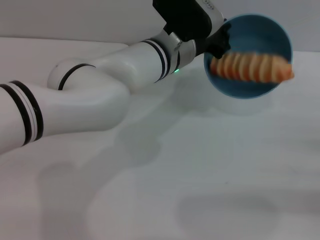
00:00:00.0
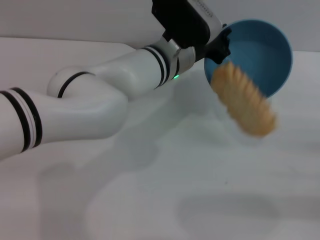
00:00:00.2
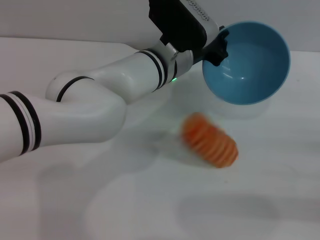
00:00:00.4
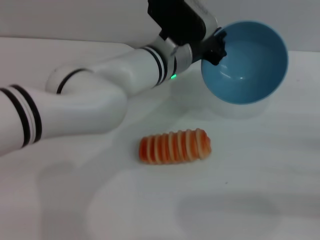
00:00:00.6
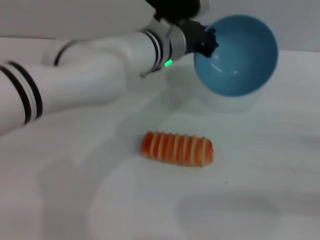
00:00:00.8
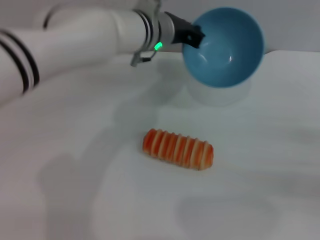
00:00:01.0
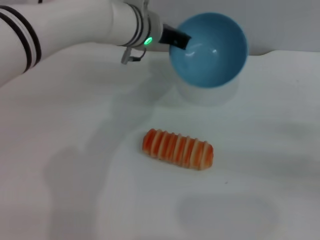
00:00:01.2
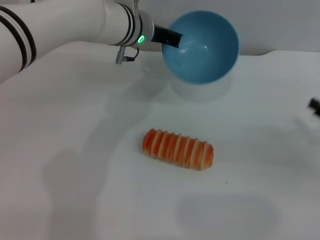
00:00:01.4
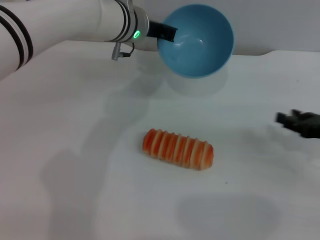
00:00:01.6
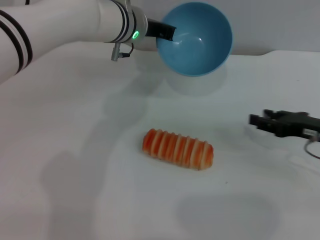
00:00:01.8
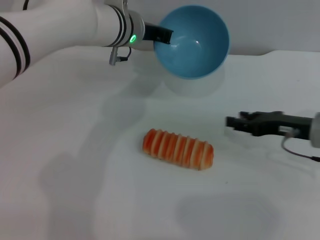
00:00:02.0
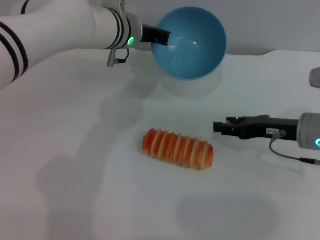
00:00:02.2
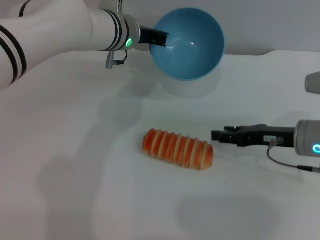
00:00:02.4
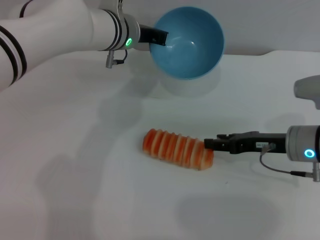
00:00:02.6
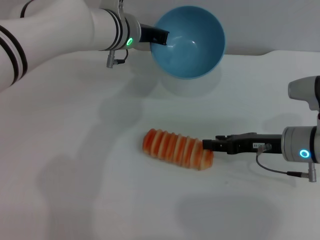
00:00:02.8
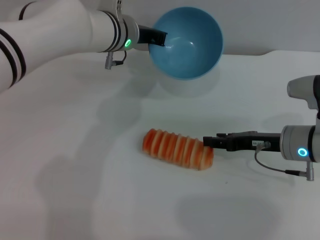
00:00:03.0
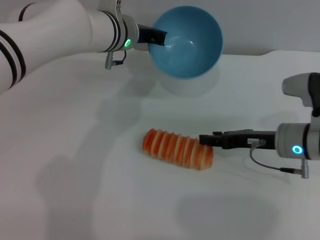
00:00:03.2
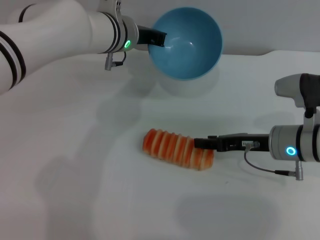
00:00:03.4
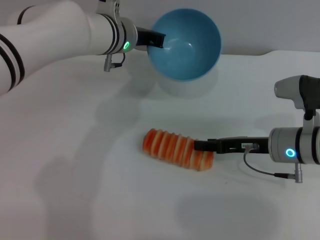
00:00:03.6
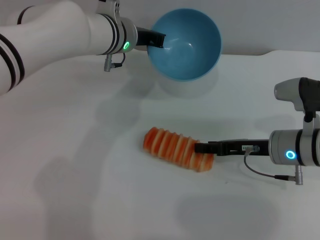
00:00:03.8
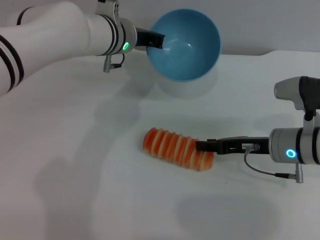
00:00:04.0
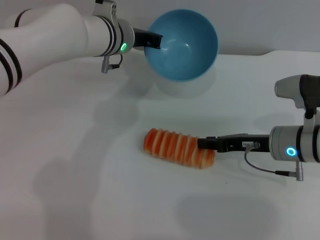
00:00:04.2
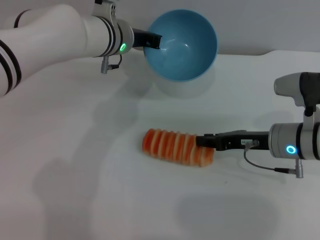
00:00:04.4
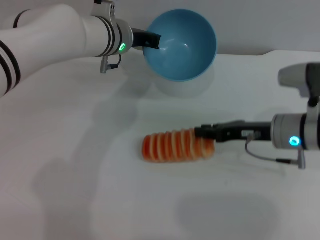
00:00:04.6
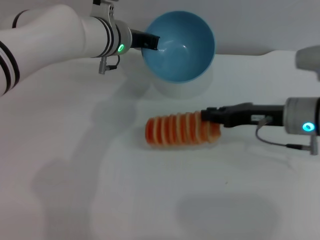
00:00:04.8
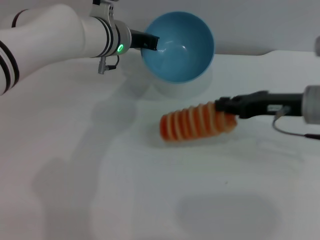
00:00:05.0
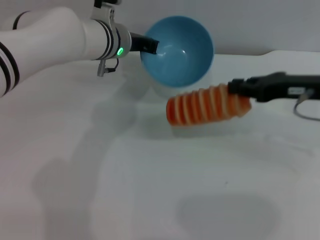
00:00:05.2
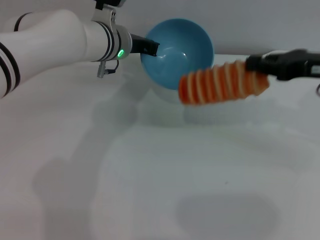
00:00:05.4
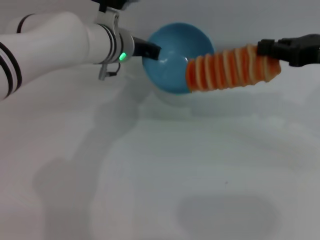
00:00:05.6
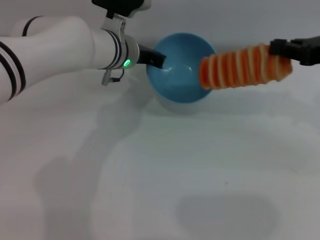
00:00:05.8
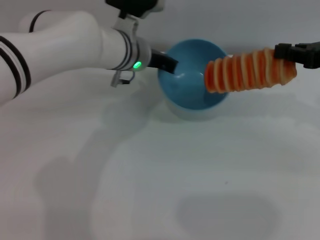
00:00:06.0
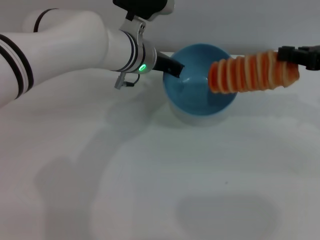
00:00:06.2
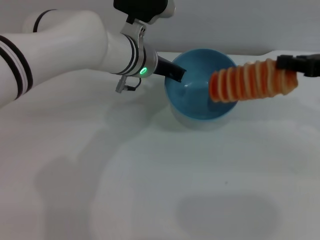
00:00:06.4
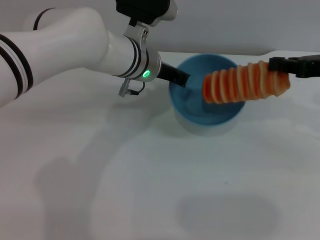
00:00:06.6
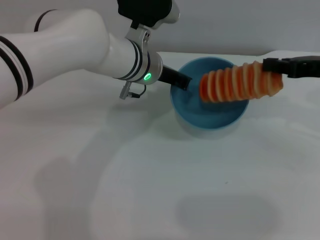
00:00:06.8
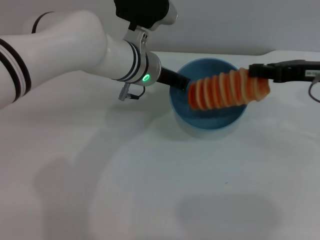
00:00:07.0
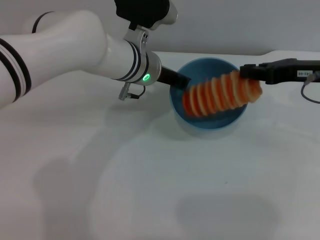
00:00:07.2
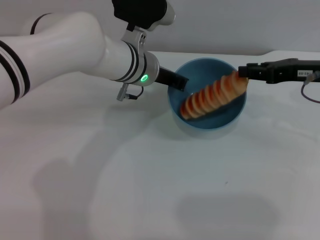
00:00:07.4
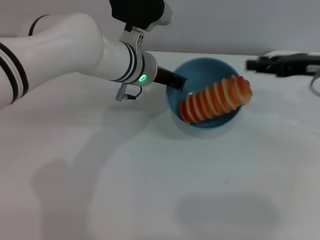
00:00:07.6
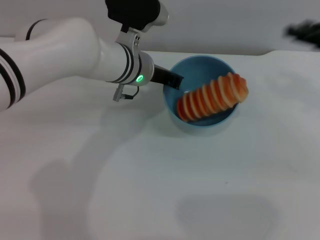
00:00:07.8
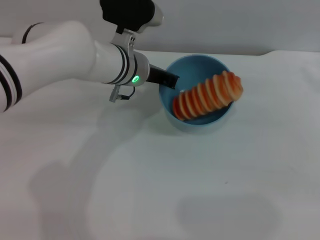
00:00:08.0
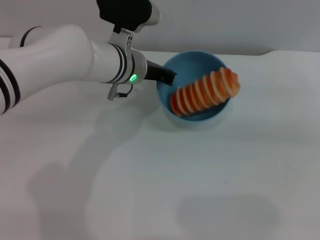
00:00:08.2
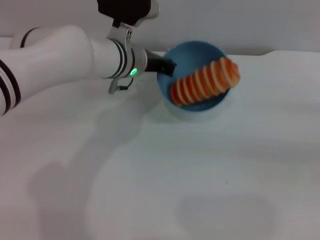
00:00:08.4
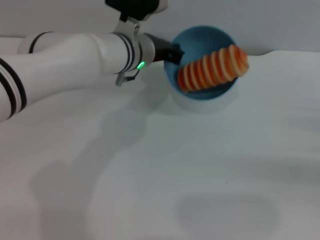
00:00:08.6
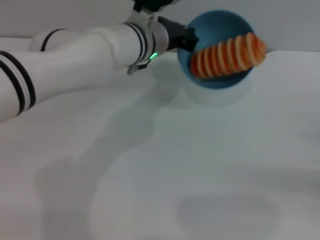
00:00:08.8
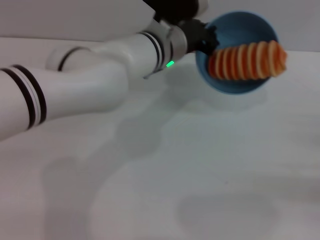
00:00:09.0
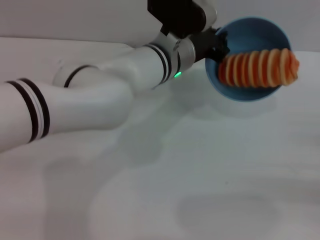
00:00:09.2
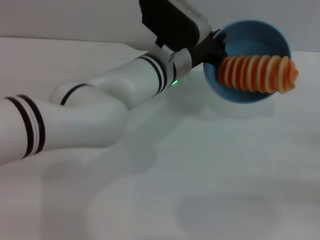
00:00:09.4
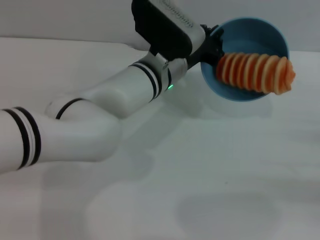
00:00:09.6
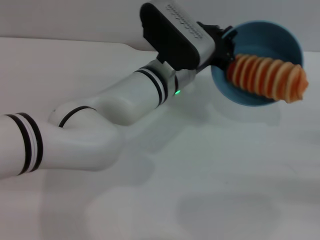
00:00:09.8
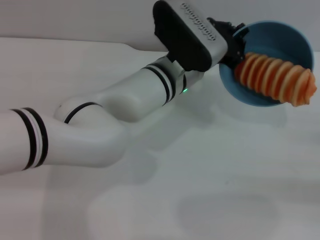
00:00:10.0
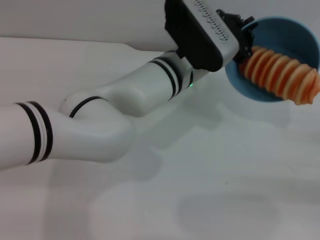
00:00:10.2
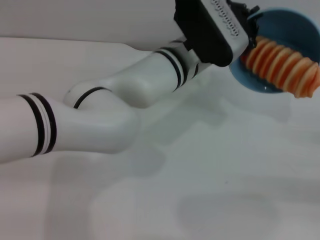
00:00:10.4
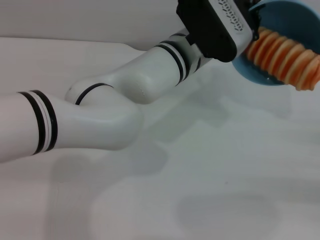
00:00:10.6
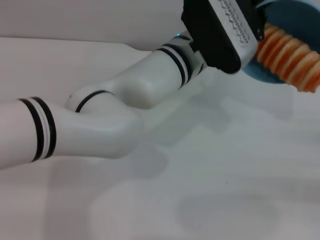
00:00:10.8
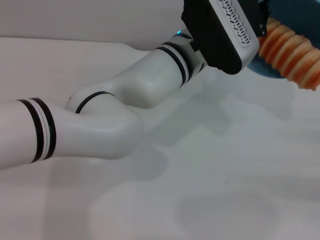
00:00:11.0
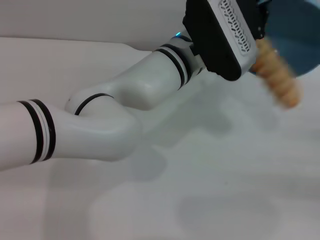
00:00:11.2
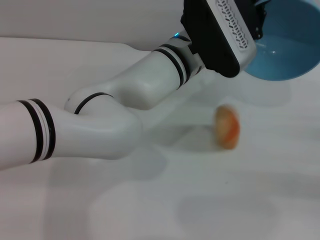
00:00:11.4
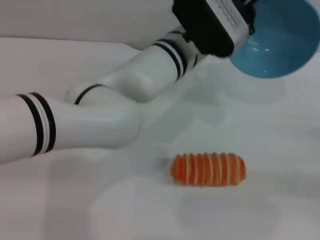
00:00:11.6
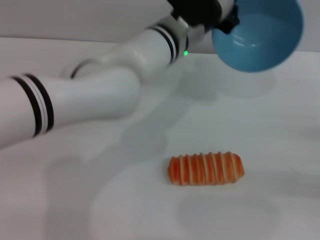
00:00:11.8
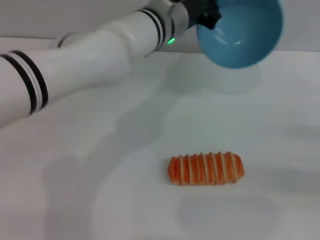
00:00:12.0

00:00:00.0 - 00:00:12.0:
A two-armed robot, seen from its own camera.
Task of the whole recording: put the bread into the blue bowl and pour it out repeatedly.
Step, 00:00:00.8 - 00:00:05.2: Pick up the bread with the right gripper.
Step, 00:00:05.4 - 00:00:07.6: Place the bread into the bowl.
Step, 00:00:07.8 - 00:00:11.4: Pour the bread out of the bowl.
00:00:00.0 - 00:00:01.6: The left gripper heads to the left and forward, covering roughly 10 cm. Meanwhile the right gripper moves forward and to the left, roughly 10 cm.
00:00:01.6 - 00:00:03.0: The right gripper moves to the left, some 10 cm.
00:00:03.0 - 00:00:04.4: The right gripper closes its fingers.
00:00:04.4 - 00:00:06.0: The right gripper moves upward and to the right, about 20 cm.
00:00:06.0 - 00:00:07.6: The right gripper opens up.
00:00:07.6 - 00:00:09.0: The right gripper heads backward, to the right and downward, covering roughly 20 cm, and opens.
00:00:10.4 - 00:00:12.0: The left gripper ends up some 5 cm from where it was.

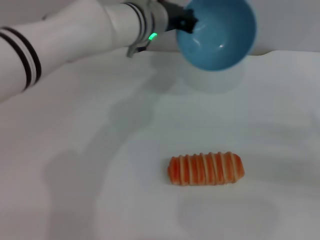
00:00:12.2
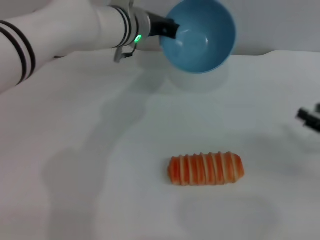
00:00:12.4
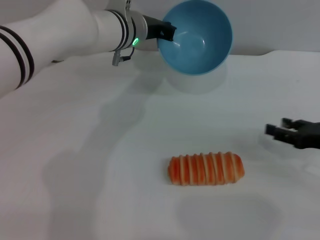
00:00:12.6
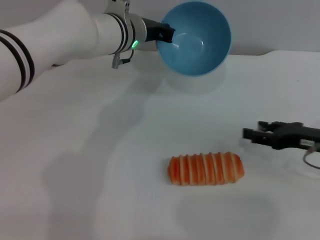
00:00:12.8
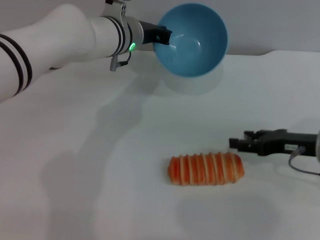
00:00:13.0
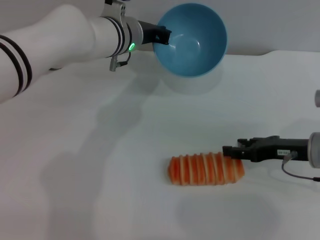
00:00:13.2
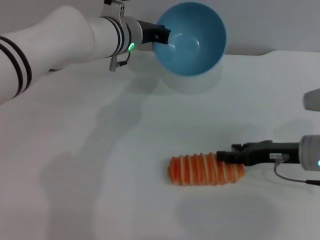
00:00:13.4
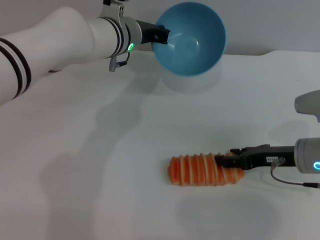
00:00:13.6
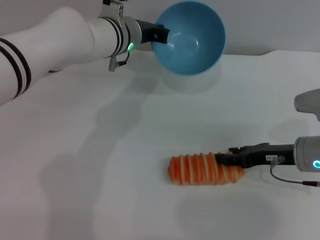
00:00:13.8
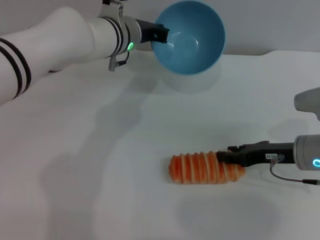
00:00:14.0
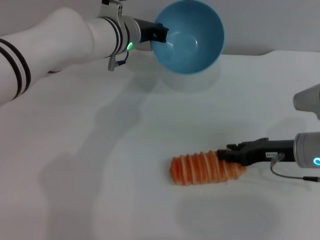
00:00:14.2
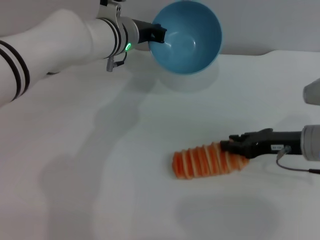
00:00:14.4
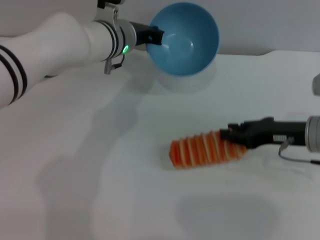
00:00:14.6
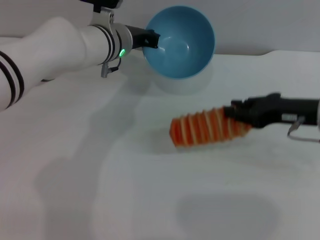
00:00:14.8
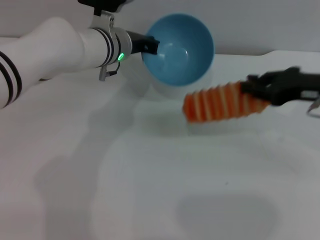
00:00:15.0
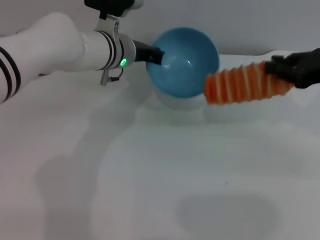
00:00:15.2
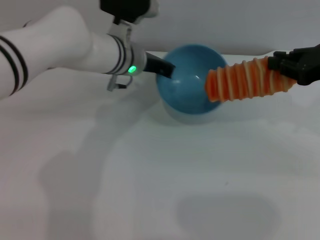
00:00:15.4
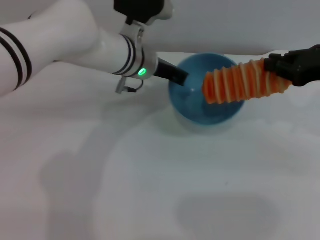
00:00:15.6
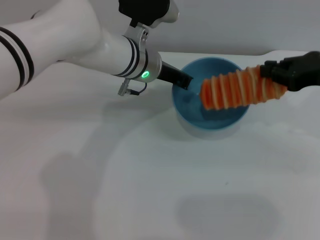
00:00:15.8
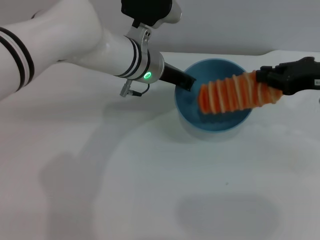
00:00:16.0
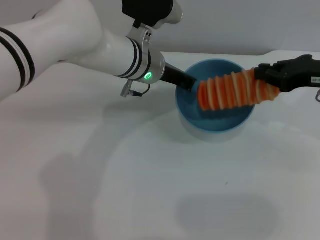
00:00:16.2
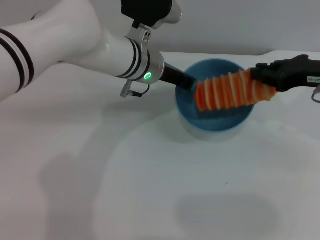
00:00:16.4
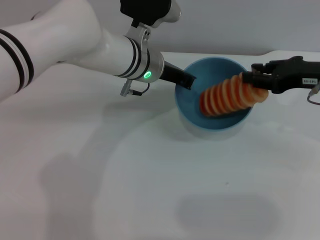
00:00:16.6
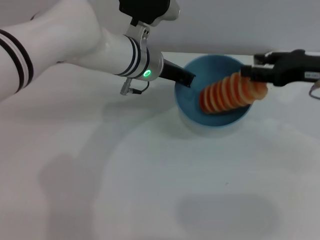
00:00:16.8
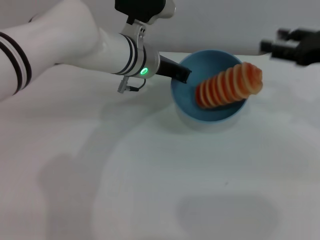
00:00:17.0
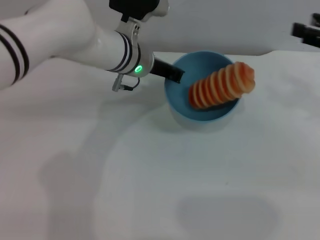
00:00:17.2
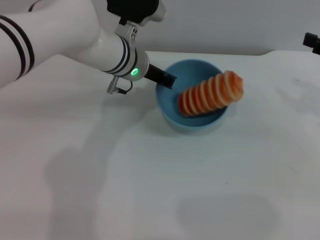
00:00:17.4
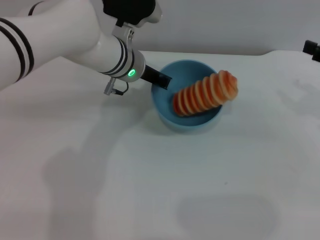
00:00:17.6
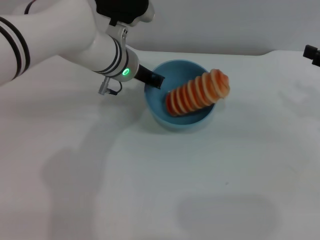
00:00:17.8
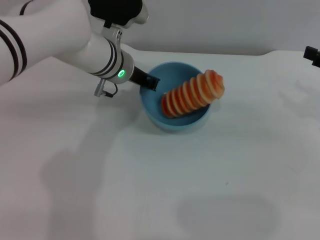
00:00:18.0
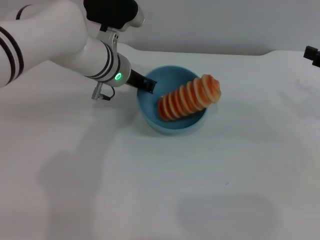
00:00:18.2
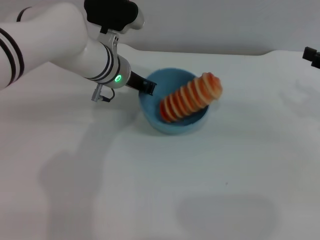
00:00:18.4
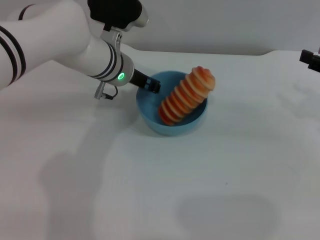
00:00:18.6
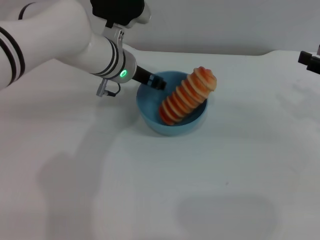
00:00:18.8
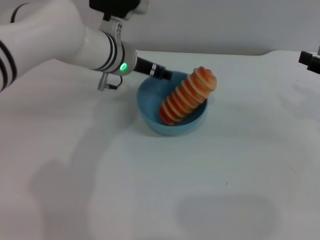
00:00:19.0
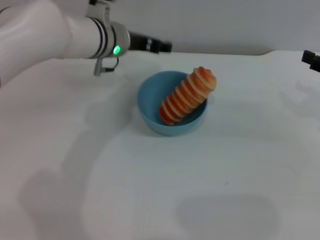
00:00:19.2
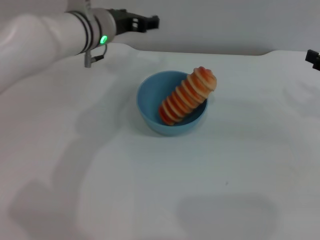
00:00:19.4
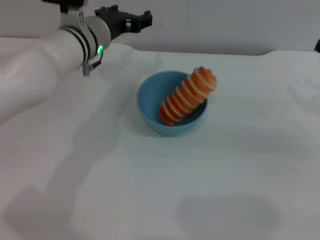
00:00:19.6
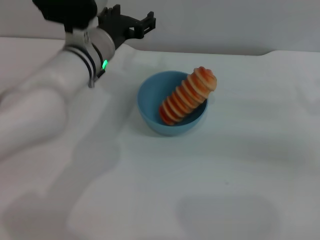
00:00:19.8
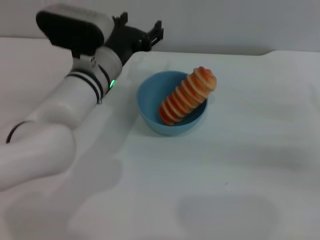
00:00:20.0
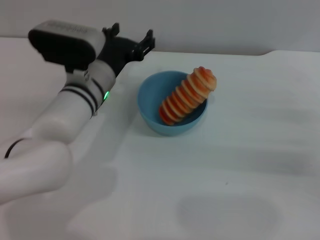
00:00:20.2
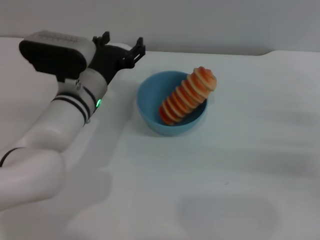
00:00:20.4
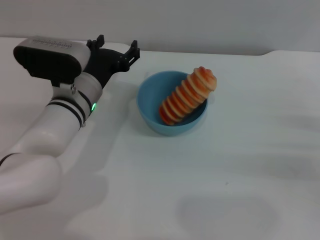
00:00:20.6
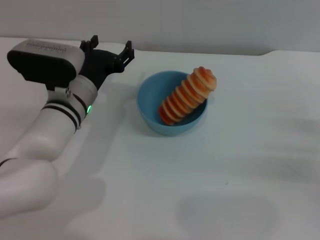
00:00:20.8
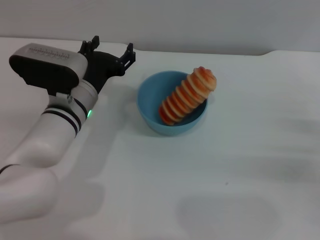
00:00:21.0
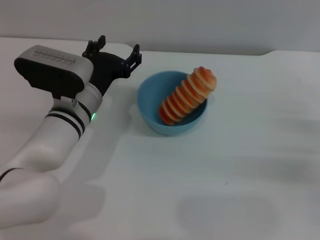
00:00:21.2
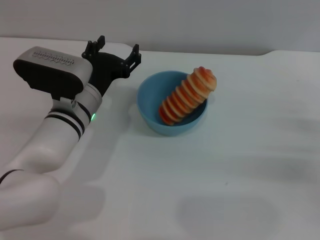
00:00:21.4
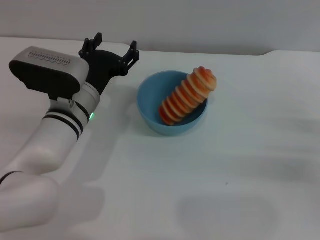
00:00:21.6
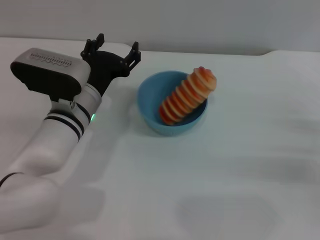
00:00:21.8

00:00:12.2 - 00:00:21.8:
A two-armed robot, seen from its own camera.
Task of the whole recording: put the bread into the blue bowl and pour it out repeatedly.
Step, 00:00:12.2 - 00:00:15.0: Pick up the bread with the right gripper.
Step, 00:00:15.2 - 00:00:16.8: Place the bread into the bowl.
Step, 00:00:17.0 - 00:00:19.0: Place the bowl on the table.
00:00:12.2 - 00:00:13.8: The right gripper is displaced to the left by approximately 15 cm.
00:00:13.8 - 00:00:15.4: The right gripper shifts approximately 15 cm upward, and closes its fingers.
00:00:15.4 - 00:00:17.0: The right gripper opens its fingers.
00:00:17.0 - 00:00:18.6: The right gripper travels to the right by about 5 cm.
00:00:18.6 - 00:00:20.2: The right gripper shifts some 10 cm downward. Meanwhile the left gripper shifts about 5 cm backward, and opens up.
00:00:20.2 - 00:00:21.8: There are only small adjustments of the grippers.
